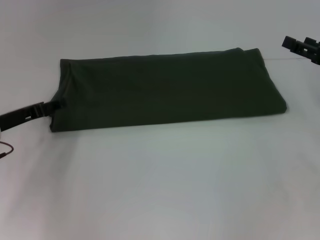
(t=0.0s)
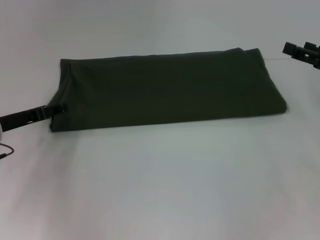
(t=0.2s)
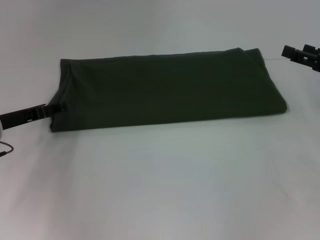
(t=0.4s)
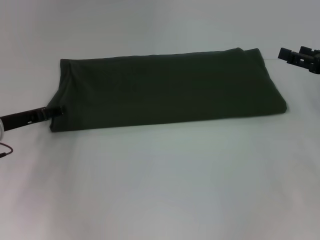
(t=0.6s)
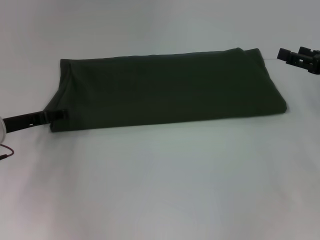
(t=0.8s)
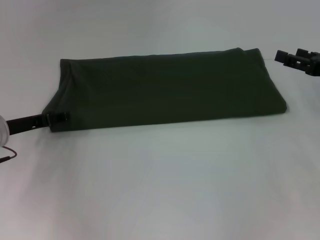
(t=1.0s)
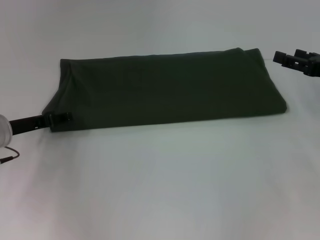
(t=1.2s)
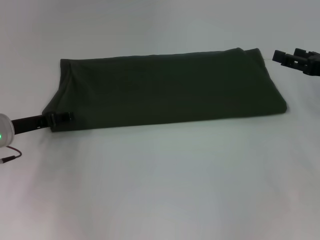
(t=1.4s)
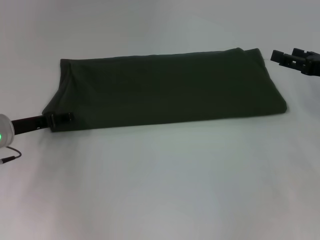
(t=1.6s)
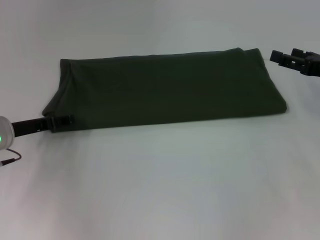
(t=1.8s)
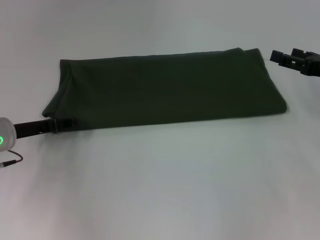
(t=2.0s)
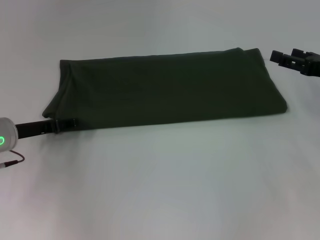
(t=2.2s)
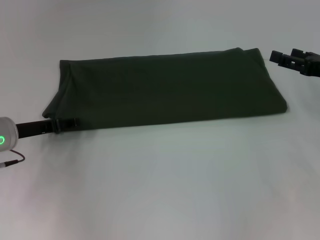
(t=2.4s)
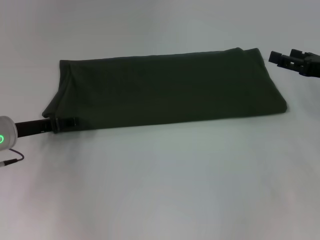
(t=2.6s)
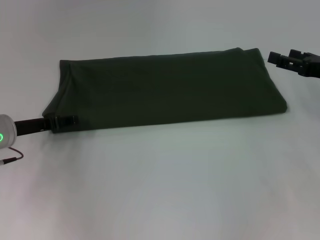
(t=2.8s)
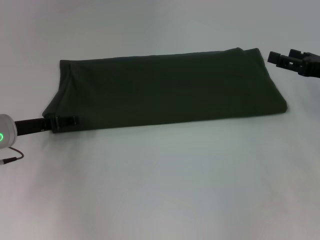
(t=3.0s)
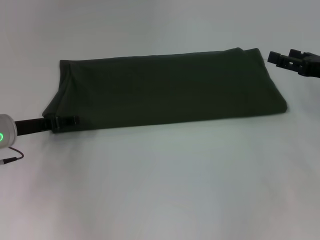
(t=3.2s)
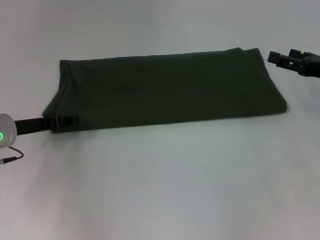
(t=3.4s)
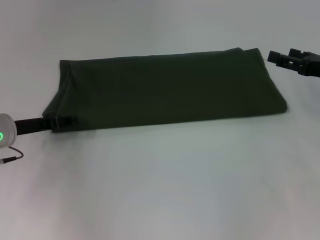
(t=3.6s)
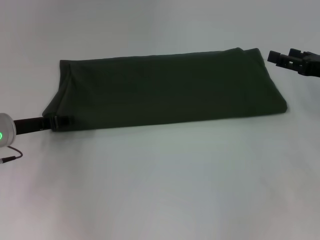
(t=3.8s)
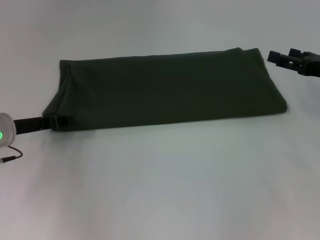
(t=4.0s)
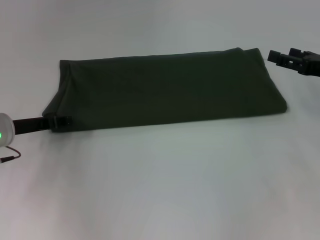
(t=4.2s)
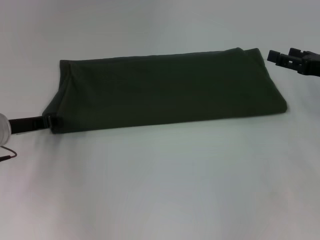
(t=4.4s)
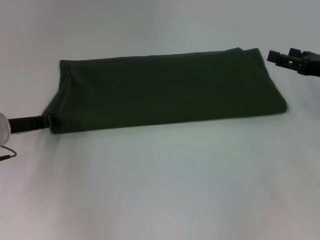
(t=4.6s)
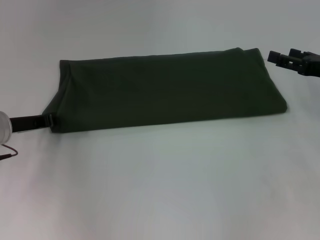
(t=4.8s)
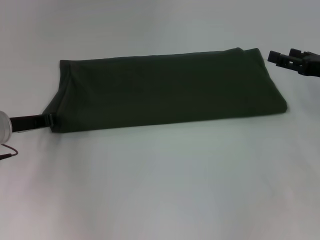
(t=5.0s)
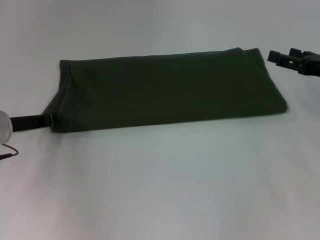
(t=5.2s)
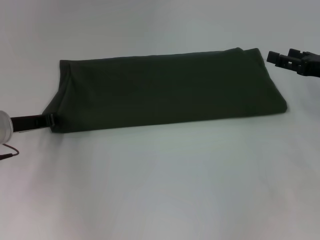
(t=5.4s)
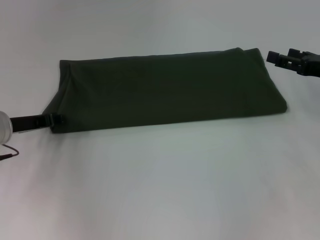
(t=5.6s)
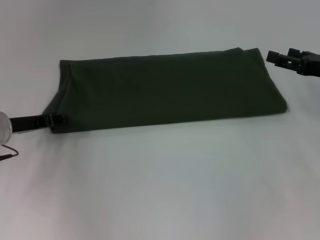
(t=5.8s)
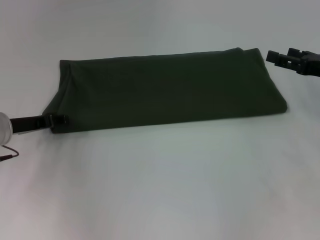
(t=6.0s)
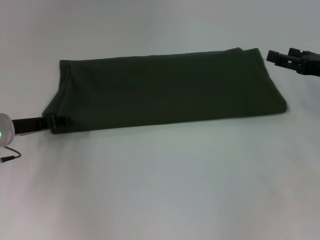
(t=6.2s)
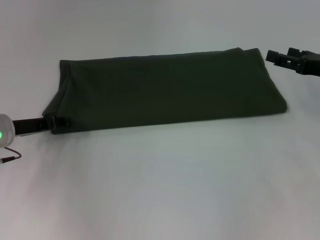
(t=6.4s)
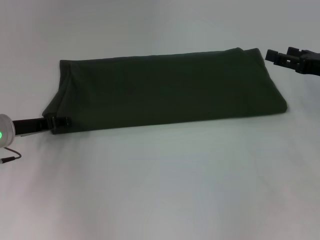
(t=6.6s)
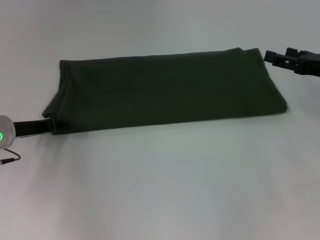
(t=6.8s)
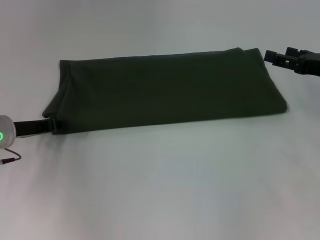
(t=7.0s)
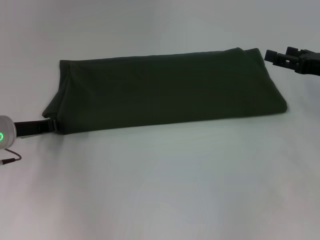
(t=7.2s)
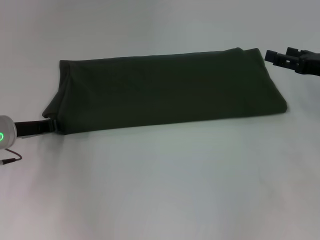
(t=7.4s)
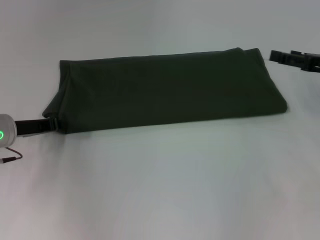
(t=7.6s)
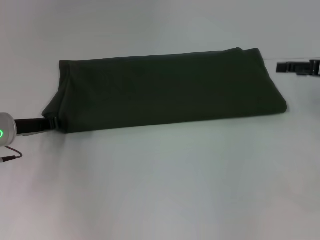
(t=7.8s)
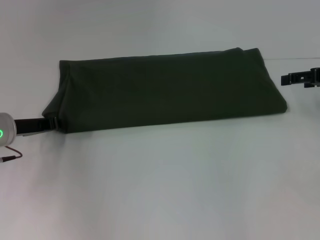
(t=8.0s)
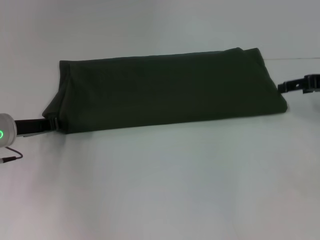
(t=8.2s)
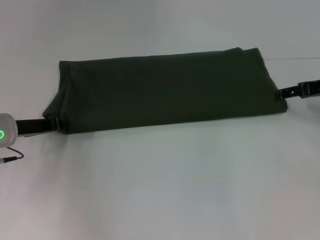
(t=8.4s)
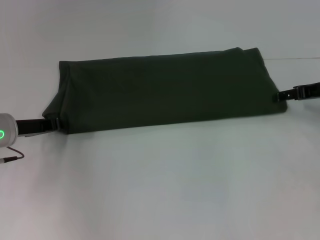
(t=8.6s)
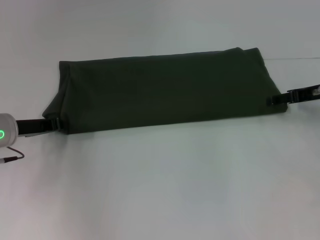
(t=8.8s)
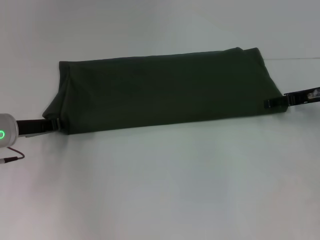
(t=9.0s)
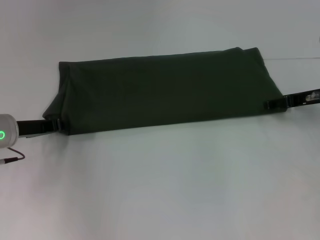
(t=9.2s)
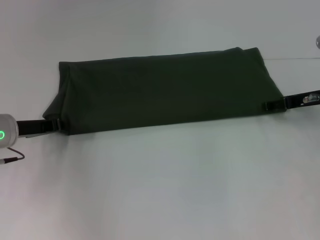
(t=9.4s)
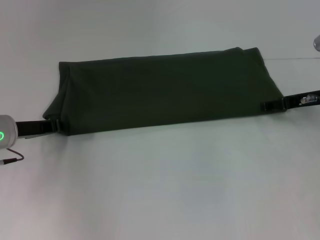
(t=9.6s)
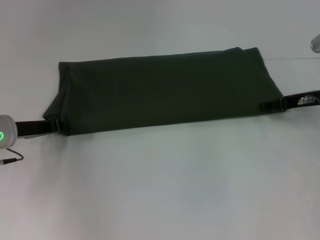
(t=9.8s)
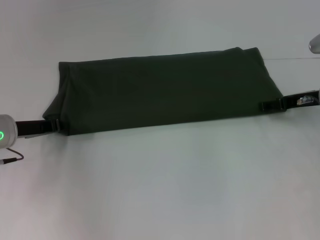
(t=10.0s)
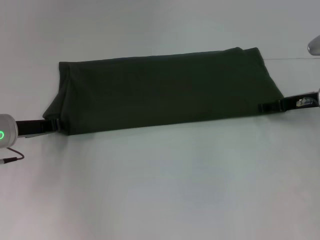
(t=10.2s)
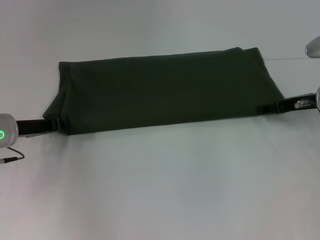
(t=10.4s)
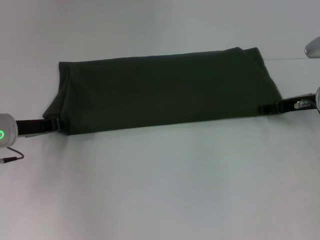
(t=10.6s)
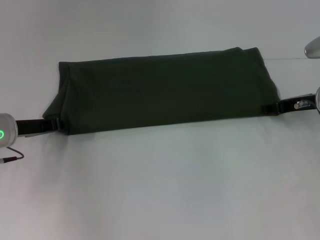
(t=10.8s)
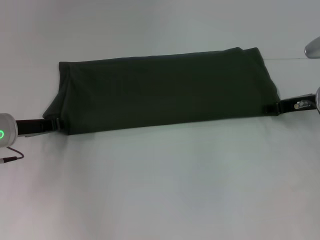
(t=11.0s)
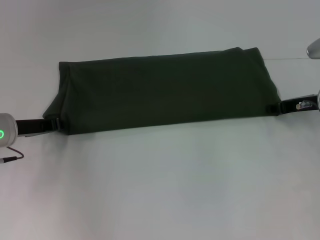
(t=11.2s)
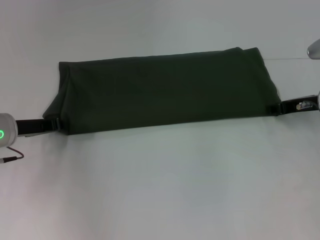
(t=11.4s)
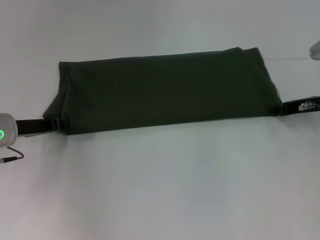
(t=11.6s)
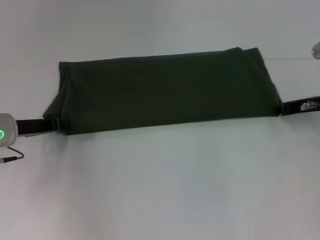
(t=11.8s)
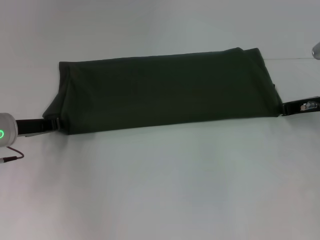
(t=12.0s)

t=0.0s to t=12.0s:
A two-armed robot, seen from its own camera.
t=0.0s to t=1.6s: The grippers move only a little.
t=1.6s to t=3.0s: Both grippers stay about where they are.
t=3.0s to t=4.4s: The left gripper closes its fingers.
t=6.0s to t=7.6s: The left gripper closes its fingers.
t=7.6s to t=9.0s: The right gripper shifts by roughly 5 cm.
t=9.0s to t=10.4s: The grippers make only small movements.
t=10.4s to t=12.0s: The right gripper closes up.

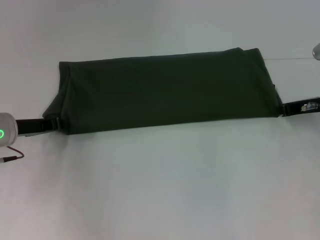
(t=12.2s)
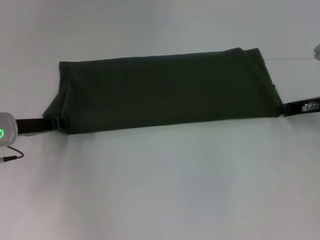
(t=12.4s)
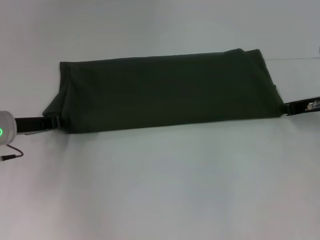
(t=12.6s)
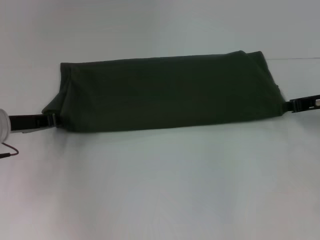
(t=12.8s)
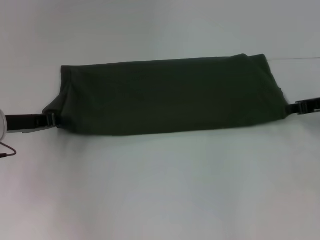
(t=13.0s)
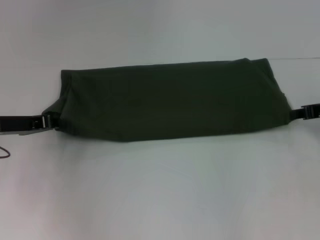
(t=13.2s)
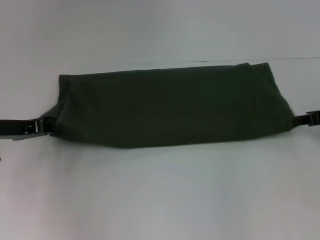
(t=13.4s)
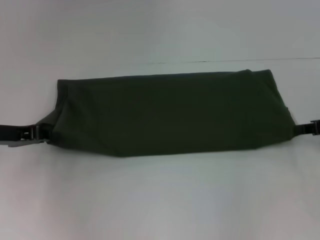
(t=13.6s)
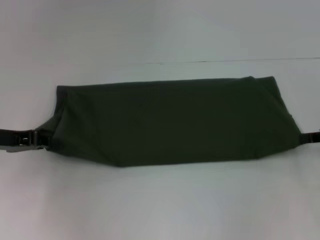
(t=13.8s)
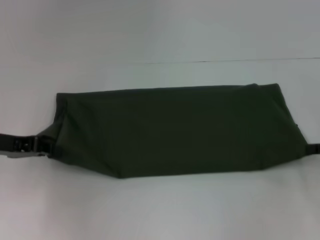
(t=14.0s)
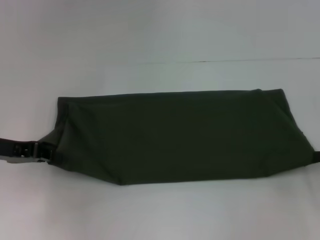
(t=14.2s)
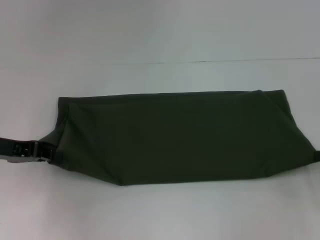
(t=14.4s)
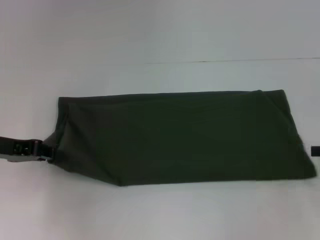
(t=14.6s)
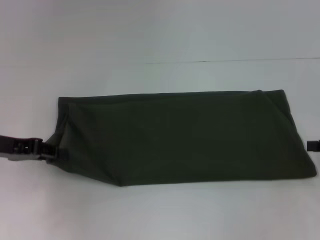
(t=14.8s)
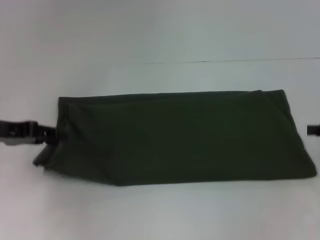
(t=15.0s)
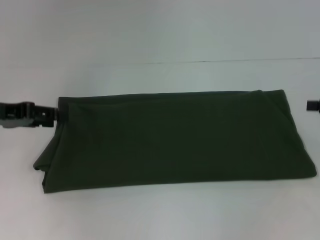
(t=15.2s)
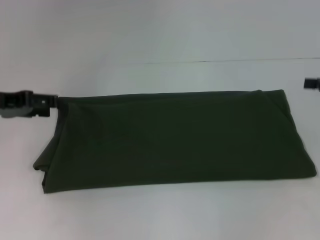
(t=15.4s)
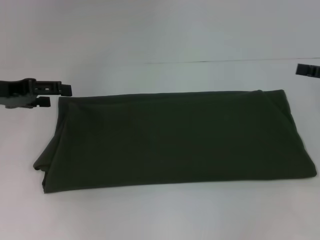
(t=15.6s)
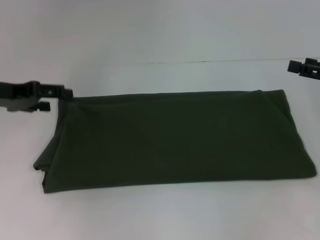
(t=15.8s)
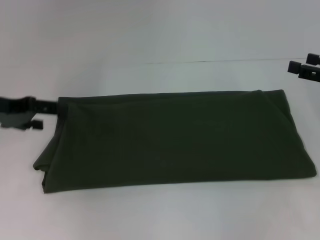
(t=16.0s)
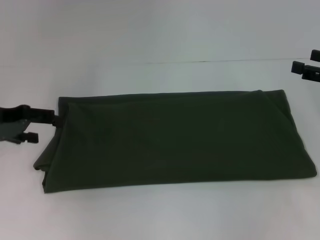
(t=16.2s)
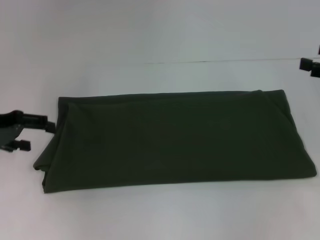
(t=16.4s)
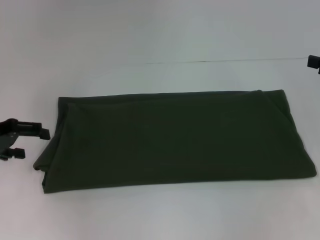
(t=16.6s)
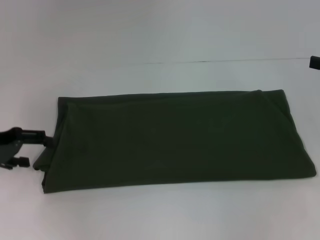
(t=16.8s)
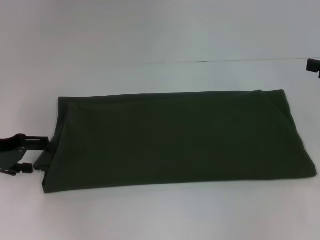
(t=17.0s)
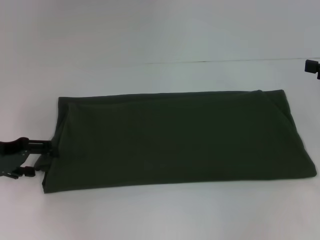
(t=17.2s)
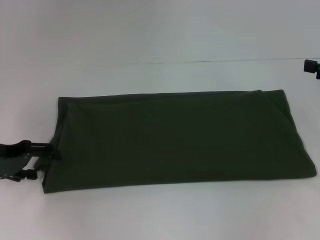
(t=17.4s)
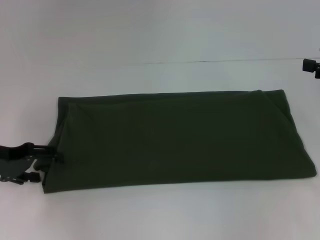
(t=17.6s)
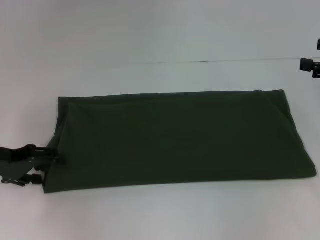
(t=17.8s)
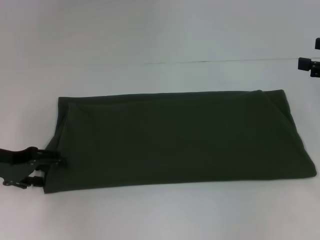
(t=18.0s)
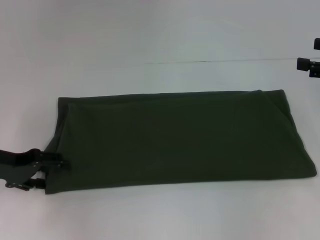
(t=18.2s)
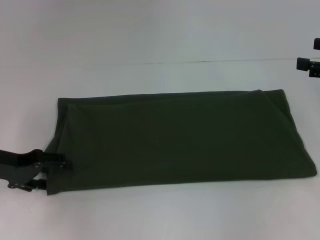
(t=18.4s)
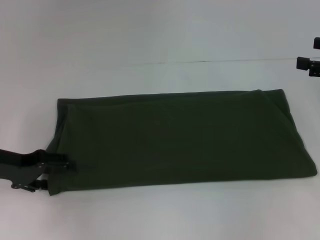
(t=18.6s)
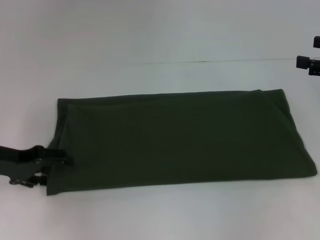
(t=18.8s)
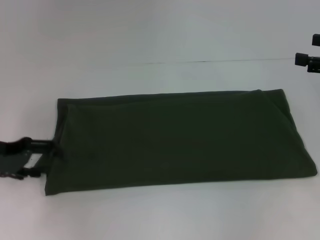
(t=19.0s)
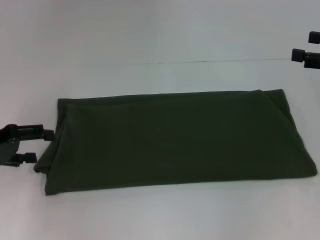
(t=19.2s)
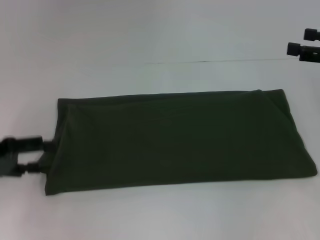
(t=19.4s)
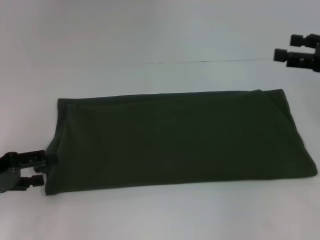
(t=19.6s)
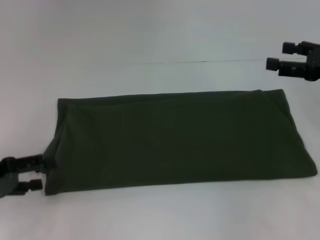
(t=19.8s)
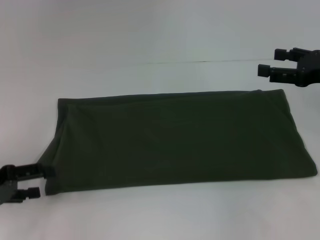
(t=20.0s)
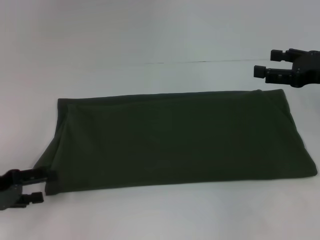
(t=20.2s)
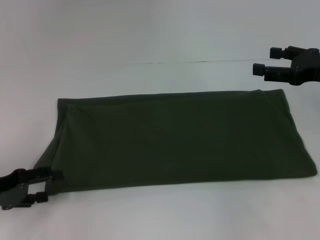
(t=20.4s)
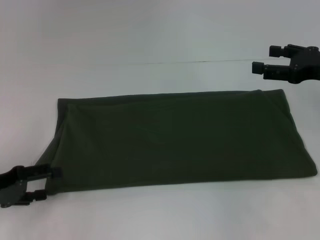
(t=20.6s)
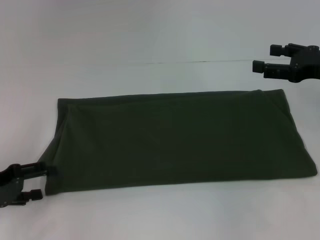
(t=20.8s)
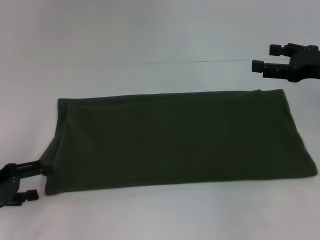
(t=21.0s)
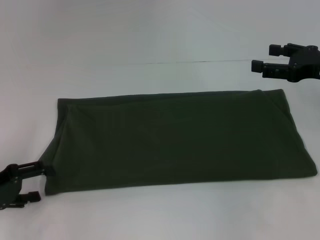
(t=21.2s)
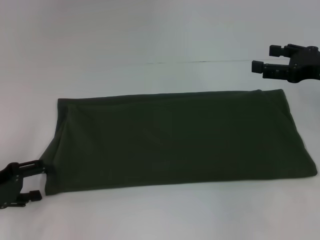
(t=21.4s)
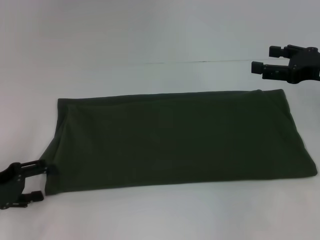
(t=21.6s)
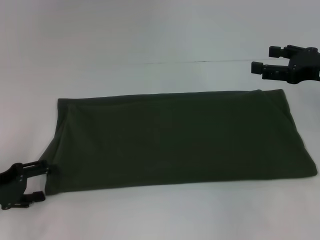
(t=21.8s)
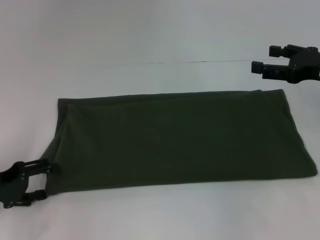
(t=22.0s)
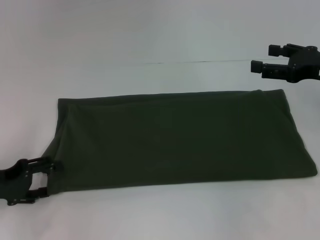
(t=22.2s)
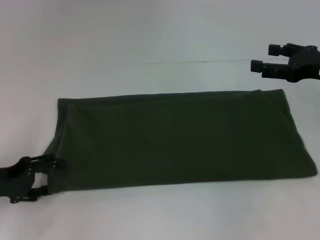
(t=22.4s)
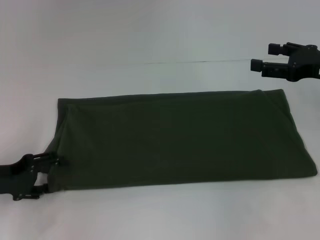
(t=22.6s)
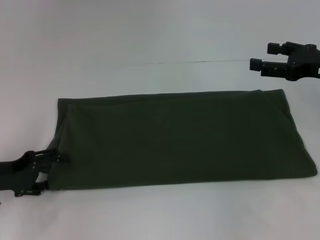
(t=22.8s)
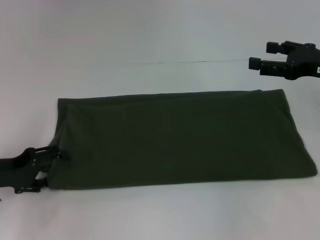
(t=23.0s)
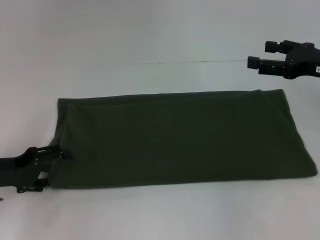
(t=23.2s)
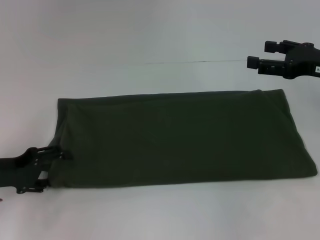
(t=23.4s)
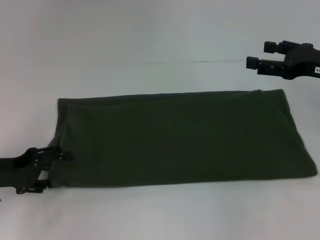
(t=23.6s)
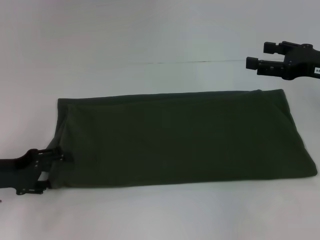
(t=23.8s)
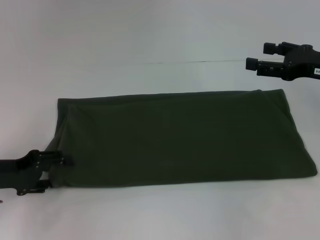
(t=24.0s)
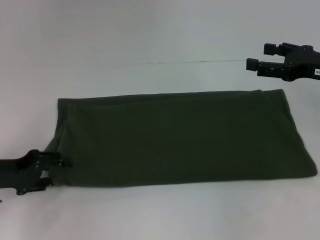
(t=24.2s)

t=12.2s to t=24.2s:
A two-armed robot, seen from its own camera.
t=12.2s to t=13.8s: The left gripper changes place by approximately 5 cm. Meanwhile the right gripper shifts roughly 10 cm backward and to the right.
t=13.8s to t=15.2s: The right gripper opens up.
t=15.2s to t=16.6s: The left gripper opens.
t=16.6s to t=18.2s: The left gripper shifts by about 5 cm.
t=18.2s to t=19.8s: The left gripper shifts approximately 5 cm backward.
t=19.8s to t=24.2s: The grippers move only a little.
